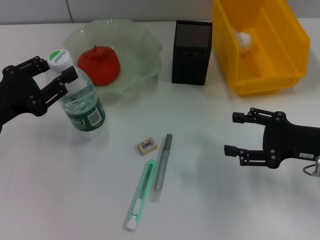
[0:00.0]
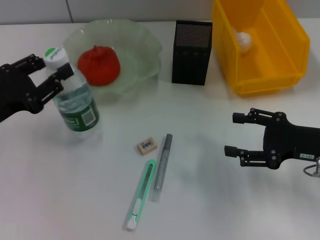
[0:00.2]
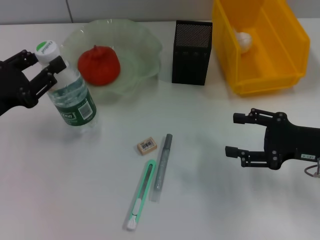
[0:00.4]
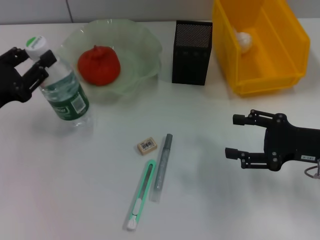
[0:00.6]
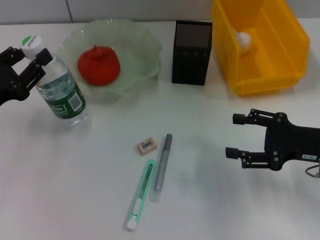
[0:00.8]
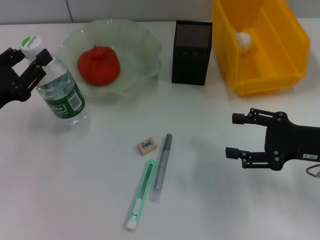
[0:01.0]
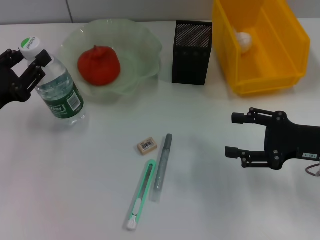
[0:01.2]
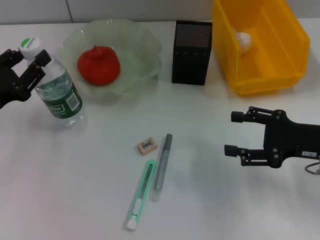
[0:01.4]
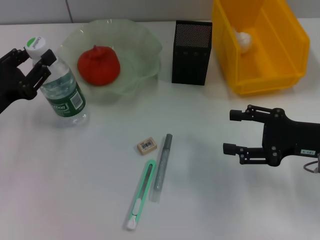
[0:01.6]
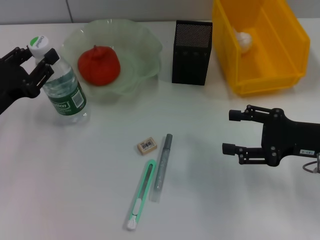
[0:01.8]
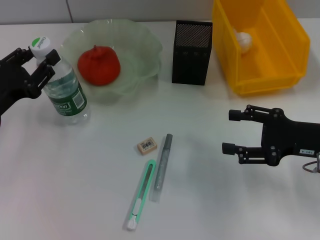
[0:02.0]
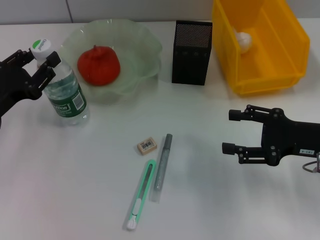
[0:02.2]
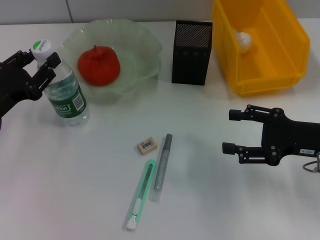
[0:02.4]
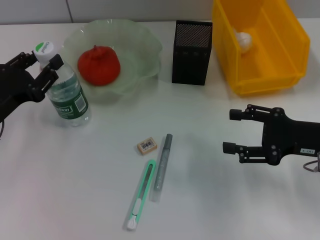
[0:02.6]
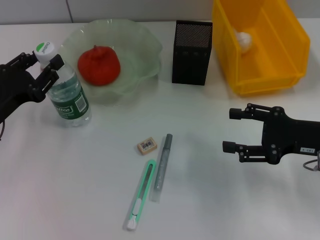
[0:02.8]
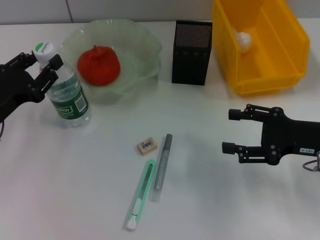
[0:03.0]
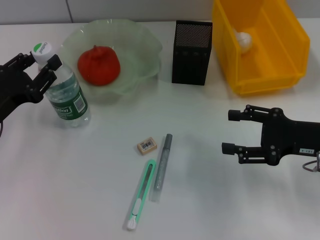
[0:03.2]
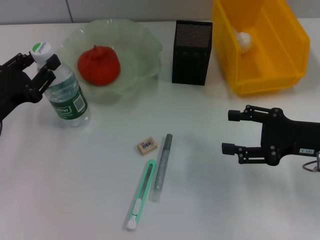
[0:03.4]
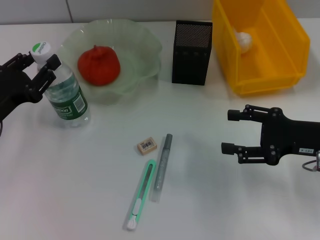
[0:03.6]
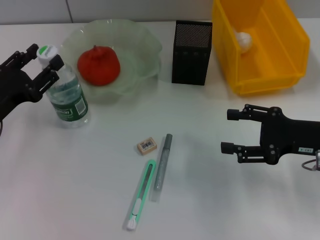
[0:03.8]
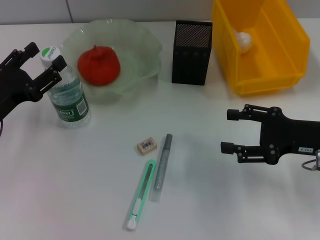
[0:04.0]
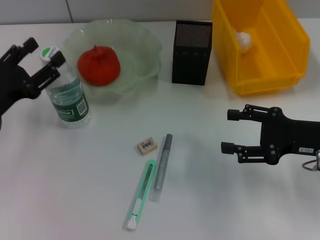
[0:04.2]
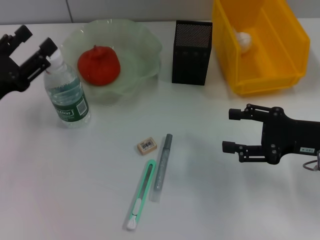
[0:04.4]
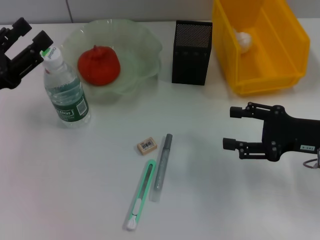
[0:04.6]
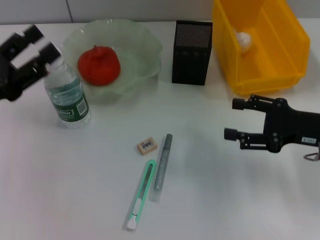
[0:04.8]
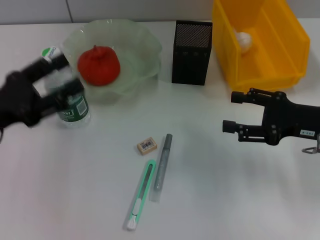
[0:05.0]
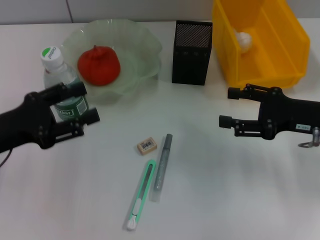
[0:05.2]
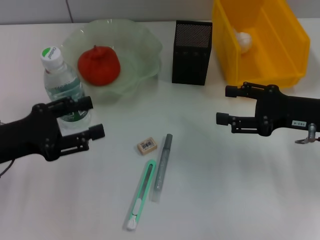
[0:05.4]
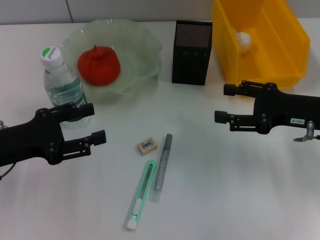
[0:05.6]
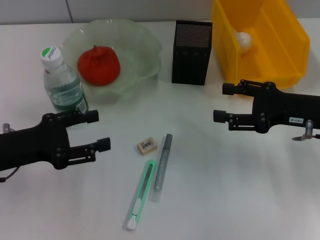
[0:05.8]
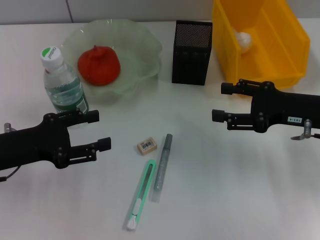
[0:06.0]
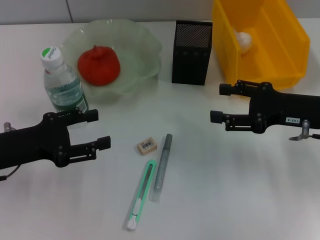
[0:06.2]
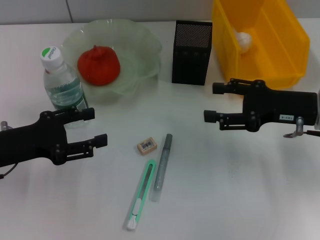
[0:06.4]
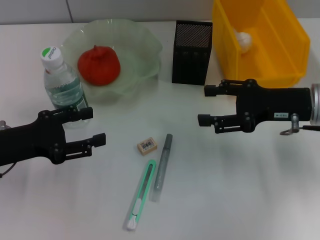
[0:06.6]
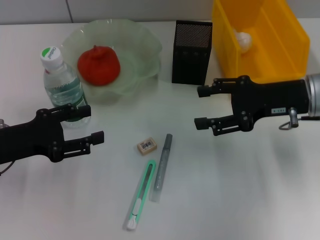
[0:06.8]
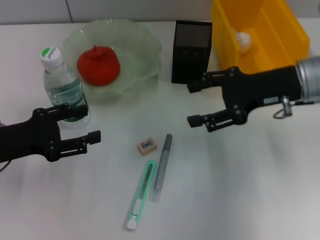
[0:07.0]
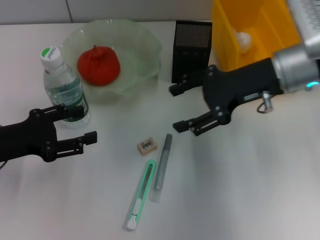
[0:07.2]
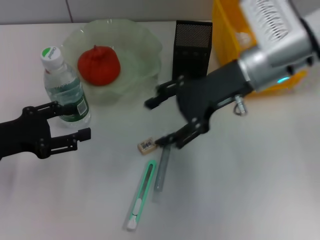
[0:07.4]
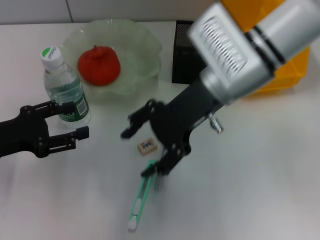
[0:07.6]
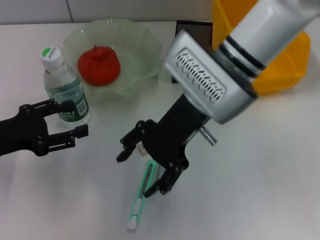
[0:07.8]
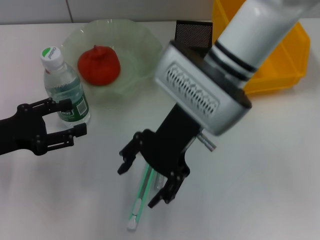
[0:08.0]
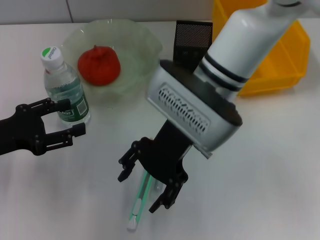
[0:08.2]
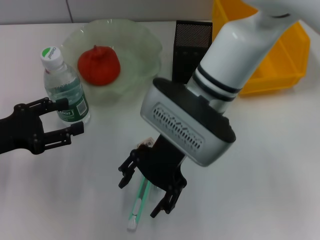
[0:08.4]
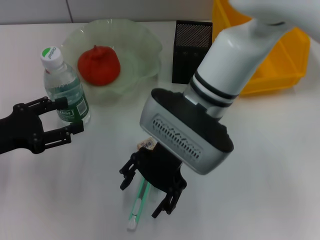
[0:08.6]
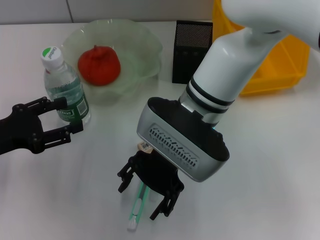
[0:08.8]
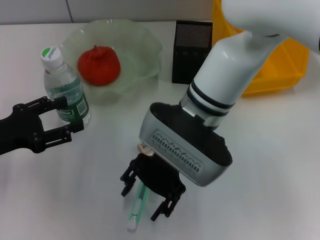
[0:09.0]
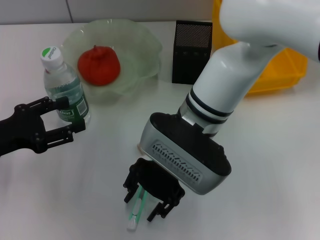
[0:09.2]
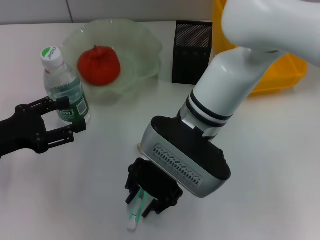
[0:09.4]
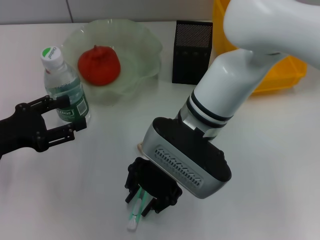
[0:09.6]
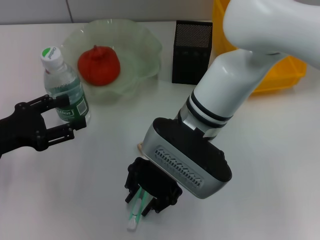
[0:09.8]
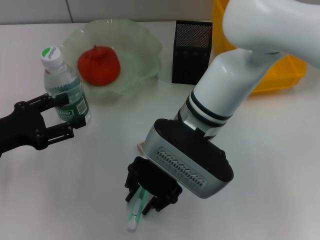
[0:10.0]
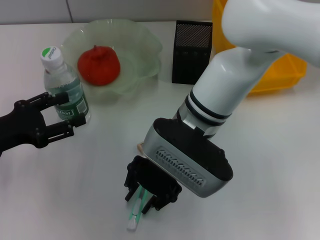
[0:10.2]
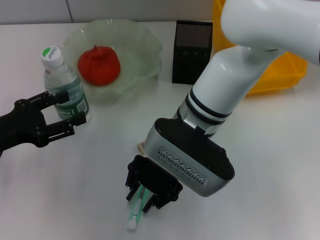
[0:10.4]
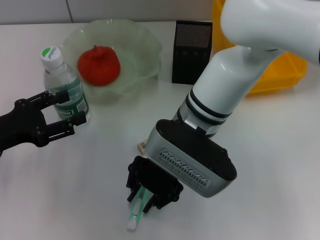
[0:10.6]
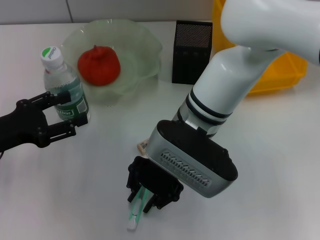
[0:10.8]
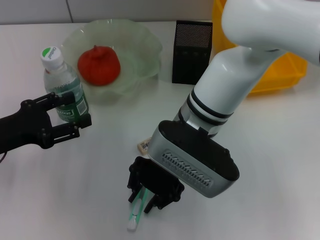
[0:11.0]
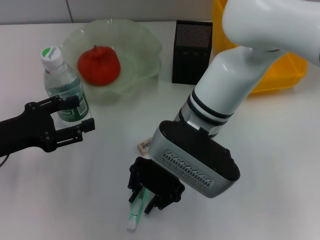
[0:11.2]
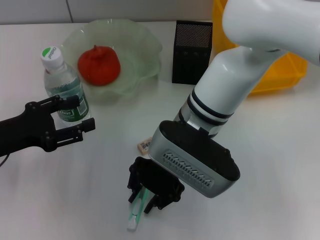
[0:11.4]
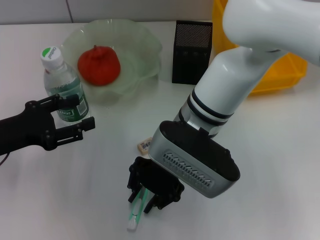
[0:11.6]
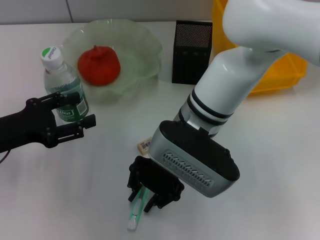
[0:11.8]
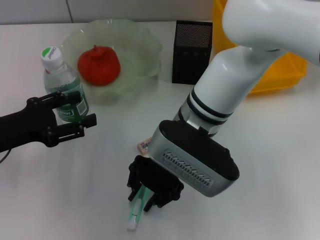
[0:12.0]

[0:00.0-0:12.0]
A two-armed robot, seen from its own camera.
Step, 0:00.0 to 0:04.0: Place the water bottle on the table with the left hand.
0:00.0 to 0:01.6: The grippers make only small movements.
0:01.6 to 0:03.0: Neither gripper changes place.
0:03.0 to 0:04.4: The left gripper opens up.
0:06.0 to 0:07.6: The right gripper heads to the left and upward, covering about 20 cm.
0:07.6 to 0:09.0: The right gripper goes roughly 5 cm to the left.
0:09.0 to 0:10.4: The right gripper closes.
0:10.4 to 0:12.0: There are only small adjustments of the grippers.

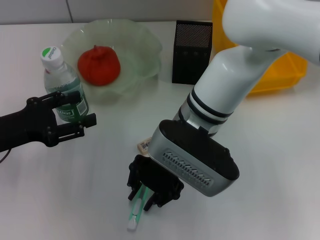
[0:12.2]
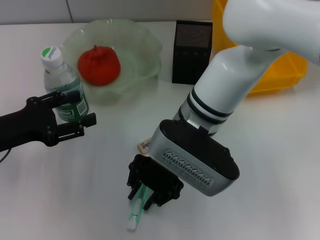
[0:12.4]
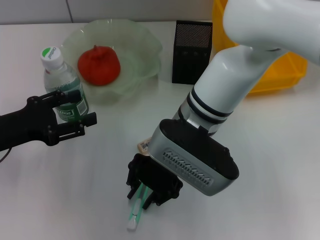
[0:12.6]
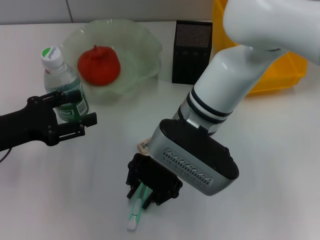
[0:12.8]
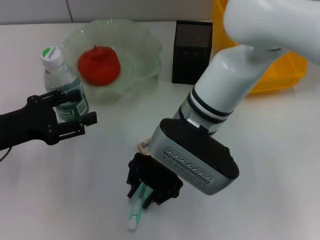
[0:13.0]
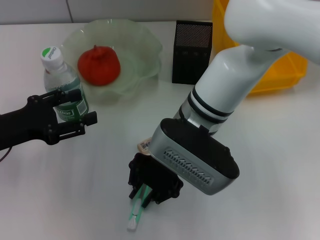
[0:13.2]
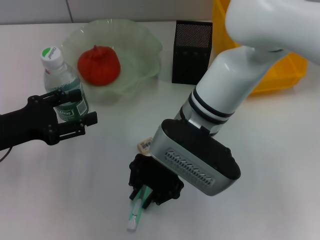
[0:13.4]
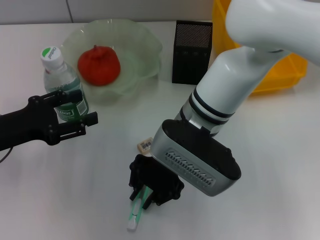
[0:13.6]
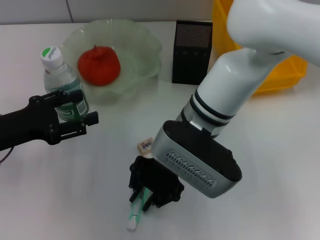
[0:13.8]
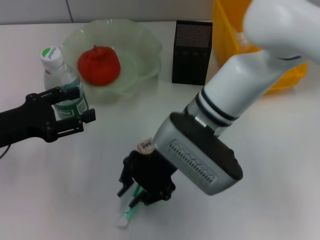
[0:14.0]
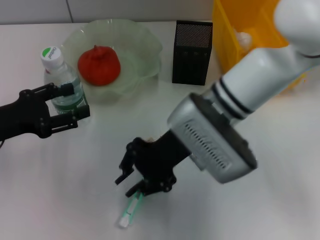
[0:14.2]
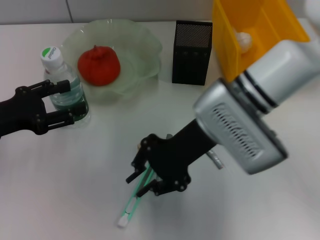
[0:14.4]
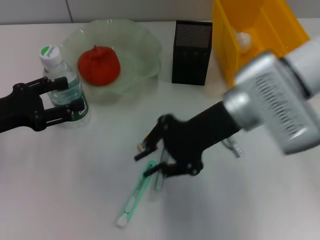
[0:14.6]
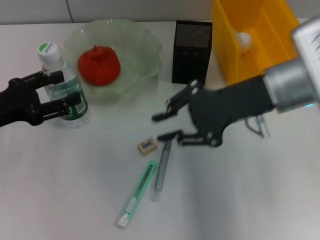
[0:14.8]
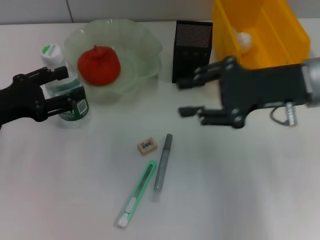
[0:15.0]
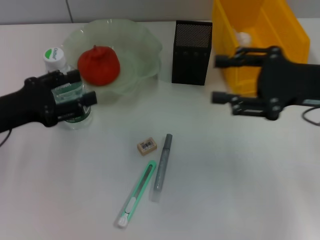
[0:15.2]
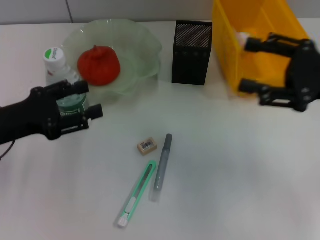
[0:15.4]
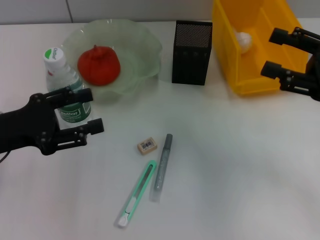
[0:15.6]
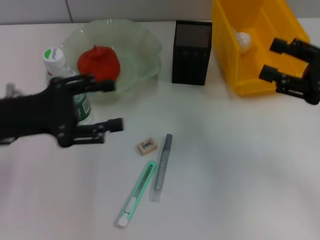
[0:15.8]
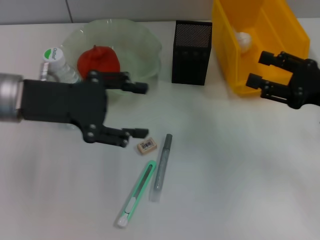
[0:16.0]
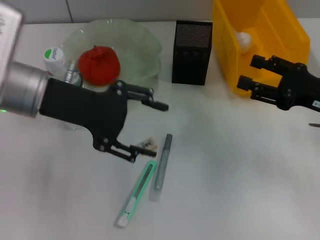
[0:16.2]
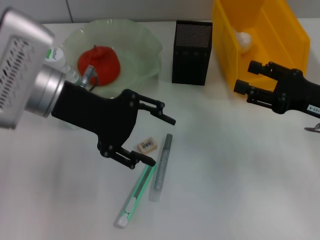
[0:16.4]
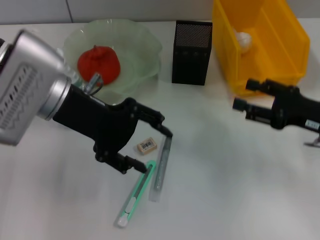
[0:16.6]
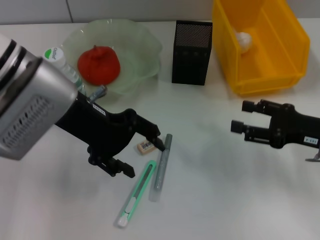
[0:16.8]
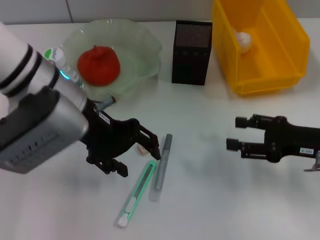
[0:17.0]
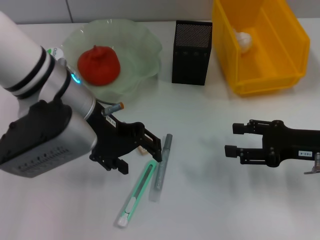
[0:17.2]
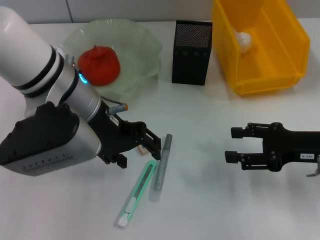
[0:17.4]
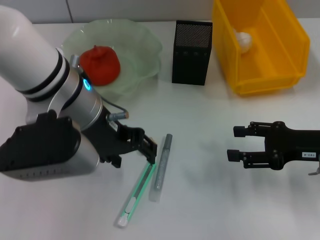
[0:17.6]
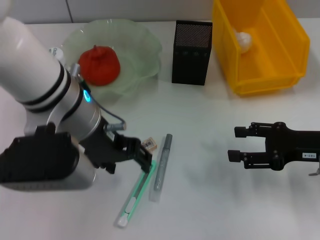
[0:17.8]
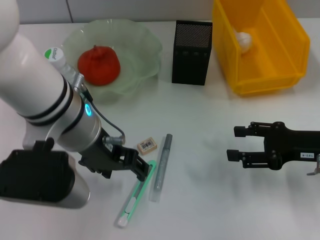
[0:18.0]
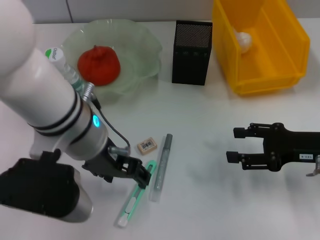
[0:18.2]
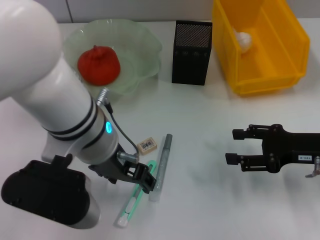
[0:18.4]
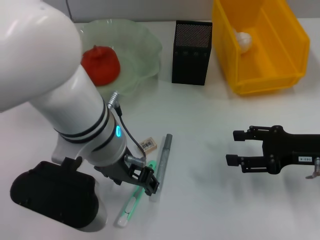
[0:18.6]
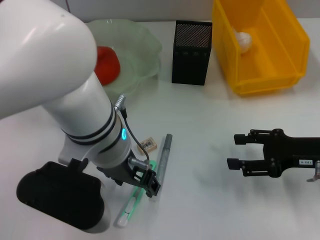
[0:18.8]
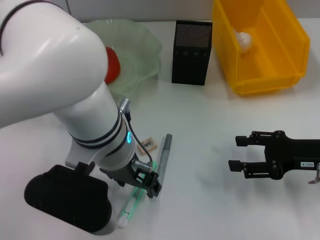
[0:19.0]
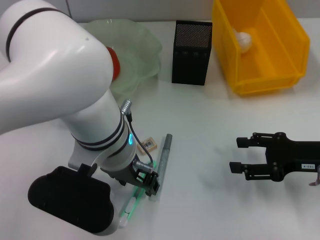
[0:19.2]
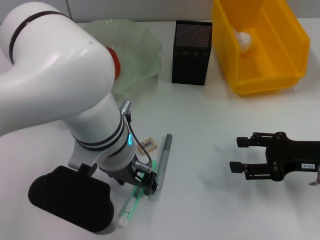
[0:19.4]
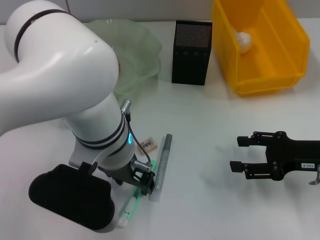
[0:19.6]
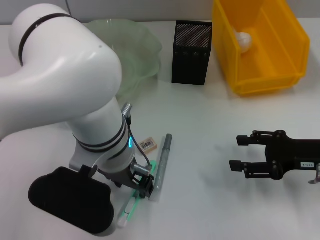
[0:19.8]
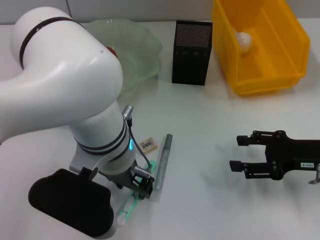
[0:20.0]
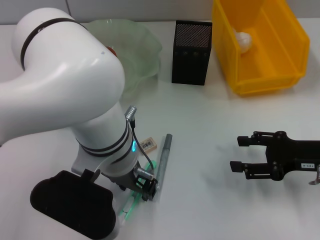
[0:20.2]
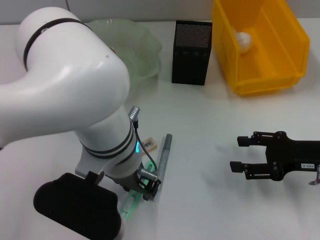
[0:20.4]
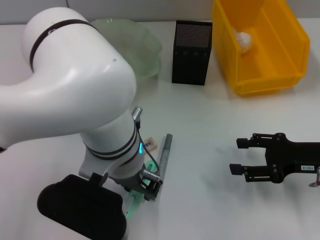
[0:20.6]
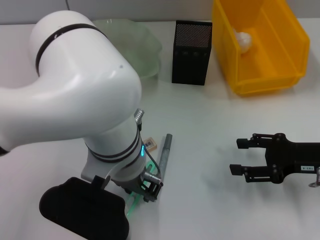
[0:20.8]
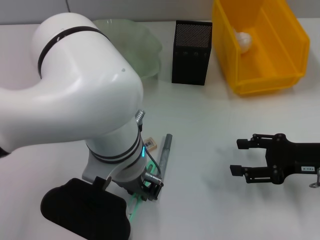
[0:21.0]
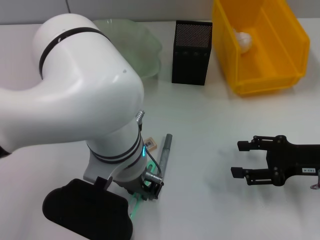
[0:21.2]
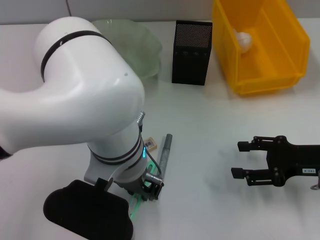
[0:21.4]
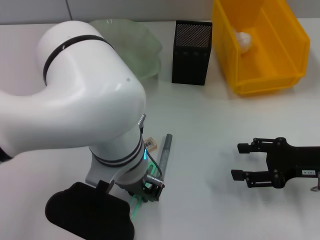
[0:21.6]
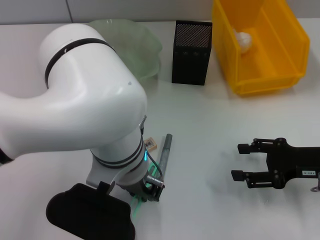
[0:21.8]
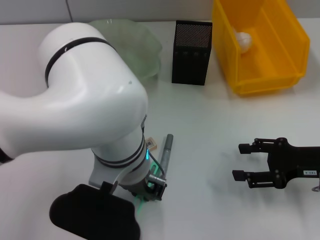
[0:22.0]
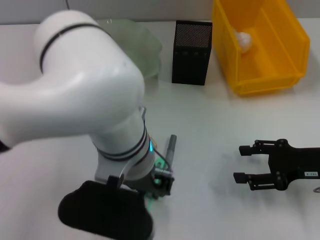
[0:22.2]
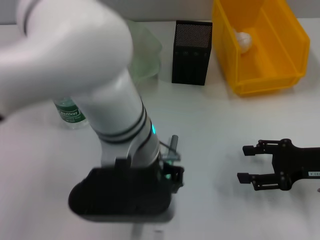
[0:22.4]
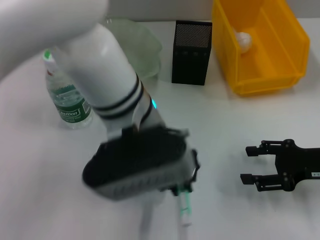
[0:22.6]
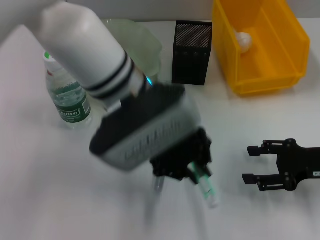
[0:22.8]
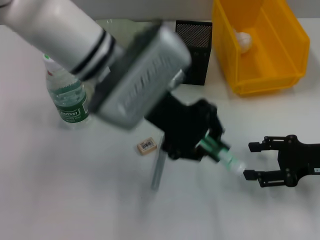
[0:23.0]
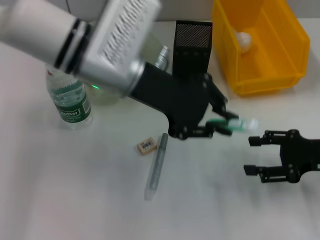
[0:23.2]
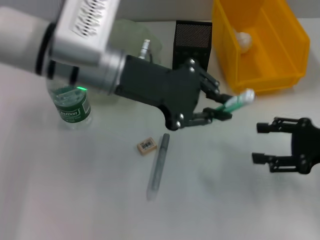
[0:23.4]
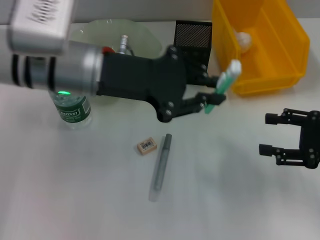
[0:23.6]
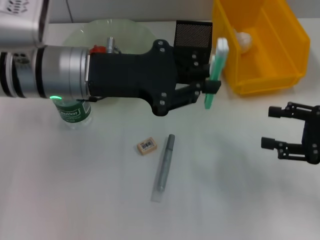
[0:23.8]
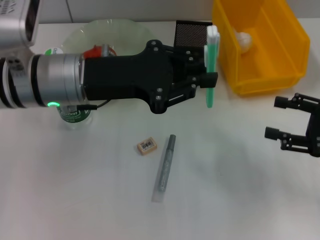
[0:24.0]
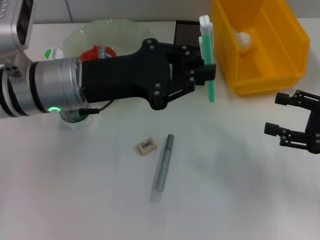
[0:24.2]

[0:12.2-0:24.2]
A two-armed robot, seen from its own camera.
Step, 0:12.2 to 0:21.8: Grab the blue utility knife with the left hand.
0:12.2 to 0:13.8: The two grippers keep their place.
0:13.8 to 0:15.2: The right gripper goes roughly 20 cm to the right.
0:15.2 to 0:16.6: The right gripper shifts roughly 10 cm downward, and opens up. Meanwhile the left gripper travels to the right and upward by about 15 cm.
0:16.6 to 0:18.2: The left gripper shifts some 5 cm to the right.
0:18.2 to 0:19.8: The left gripper ends up approximately 5 cm from where it was.
0:19.8 to 0:21.2: The left gripper closes.
0:21.2 to 0:22.6: The left gripper moves about 5 cm.
0:22.6 to 0:24.2: The left gripper shifts approximately 10 cm to the left.
